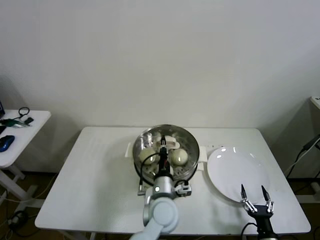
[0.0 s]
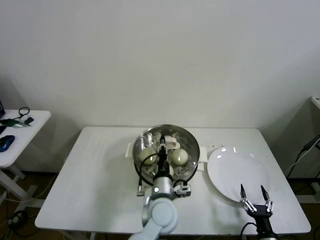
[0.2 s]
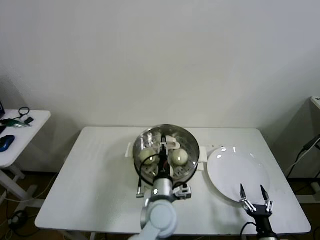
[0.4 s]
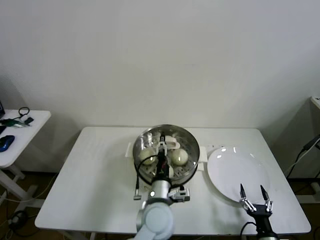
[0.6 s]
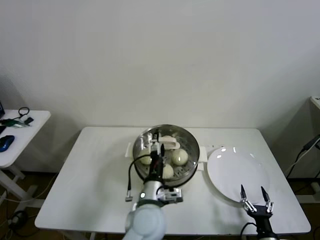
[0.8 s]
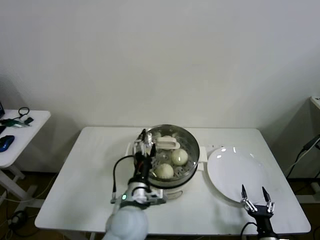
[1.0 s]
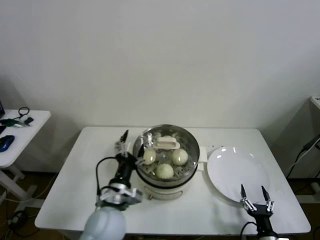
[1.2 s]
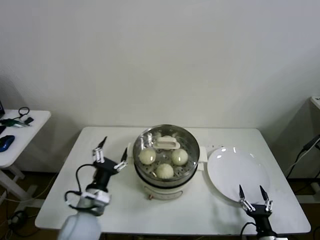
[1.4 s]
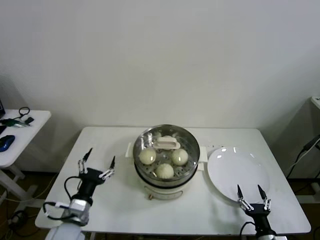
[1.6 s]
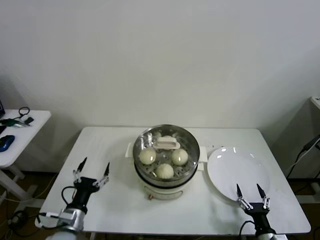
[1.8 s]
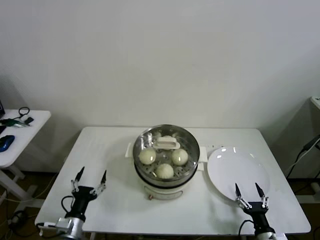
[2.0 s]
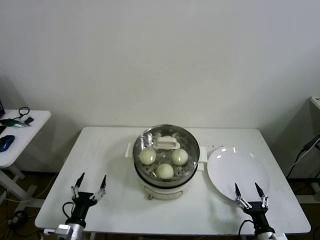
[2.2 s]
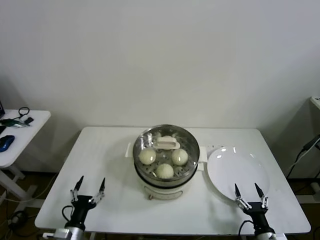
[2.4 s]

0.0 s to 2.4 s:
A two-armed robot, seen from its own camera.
Task of the whole recording: take steamed baozi put them in steamer then cover it.
0.0 to 1.2 s: The left gripper goes about 15 cm to the left, and opens.
1.2 to 2.4 s: The left gripper moves to the left and downward, approximately 25 cm.

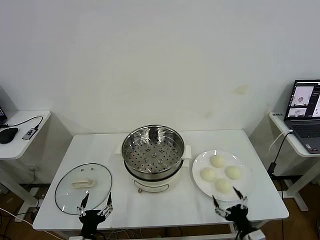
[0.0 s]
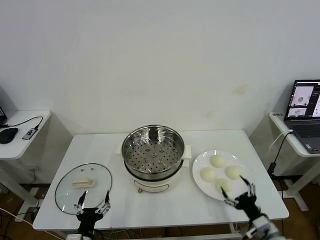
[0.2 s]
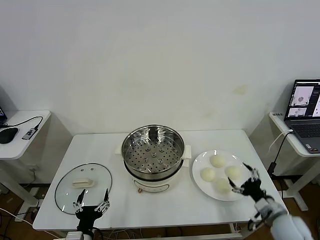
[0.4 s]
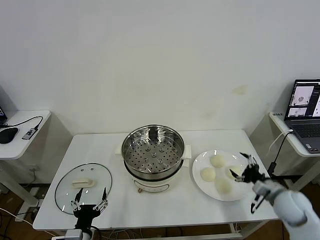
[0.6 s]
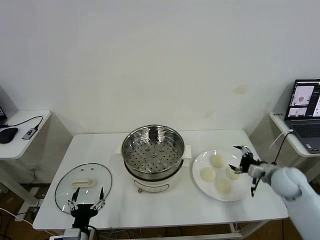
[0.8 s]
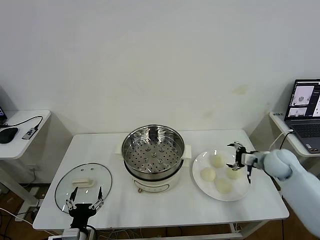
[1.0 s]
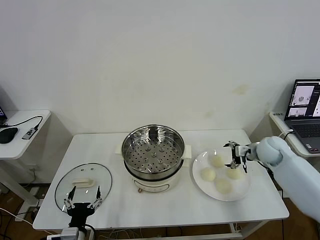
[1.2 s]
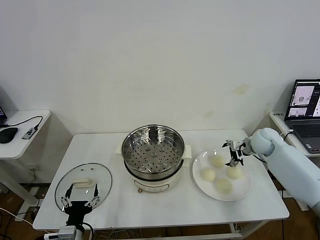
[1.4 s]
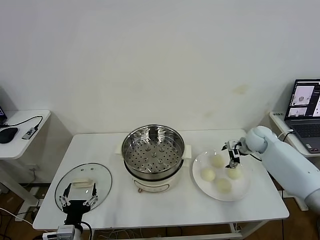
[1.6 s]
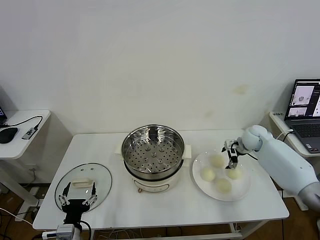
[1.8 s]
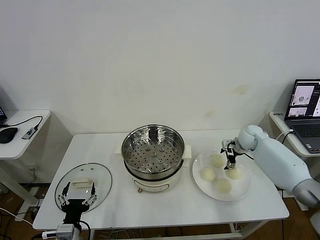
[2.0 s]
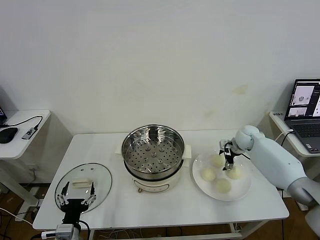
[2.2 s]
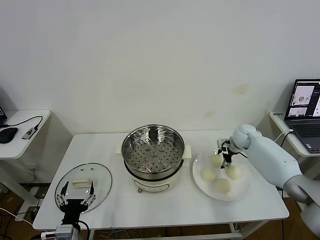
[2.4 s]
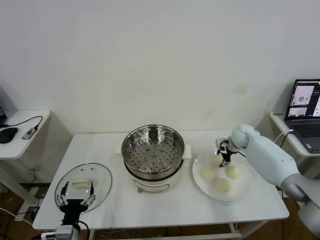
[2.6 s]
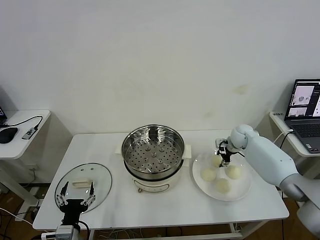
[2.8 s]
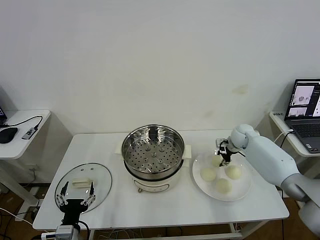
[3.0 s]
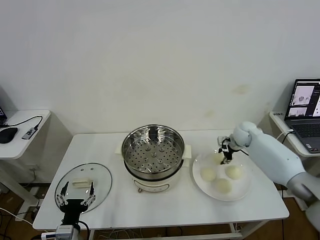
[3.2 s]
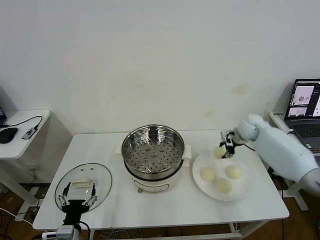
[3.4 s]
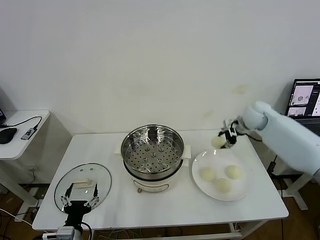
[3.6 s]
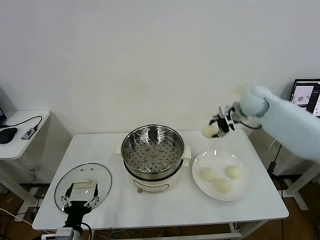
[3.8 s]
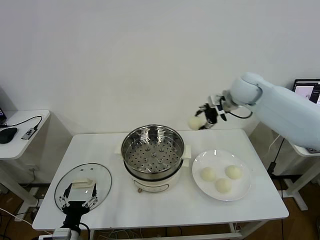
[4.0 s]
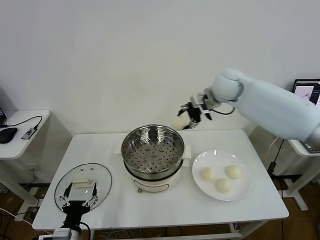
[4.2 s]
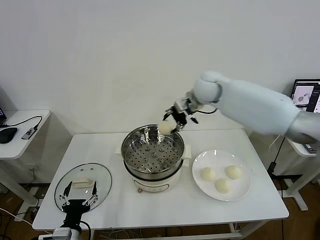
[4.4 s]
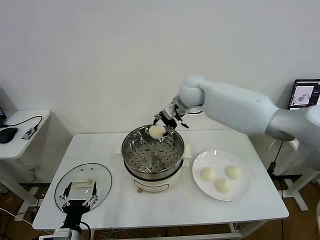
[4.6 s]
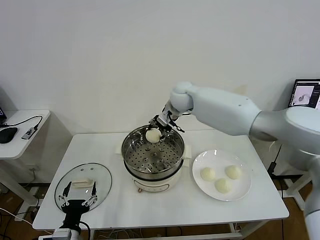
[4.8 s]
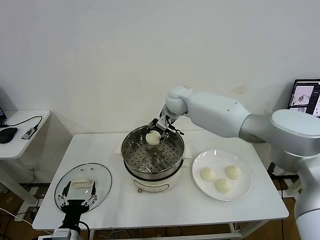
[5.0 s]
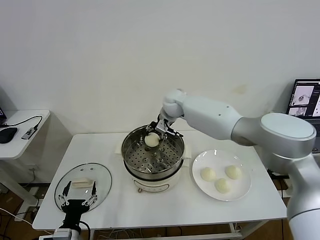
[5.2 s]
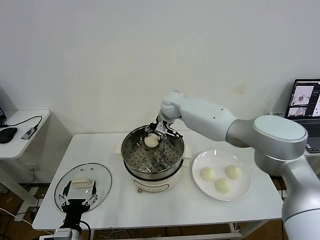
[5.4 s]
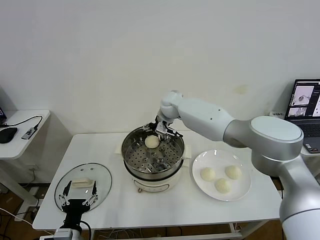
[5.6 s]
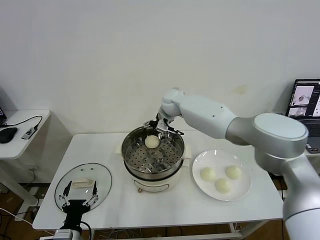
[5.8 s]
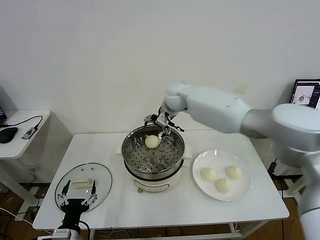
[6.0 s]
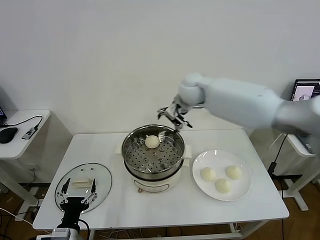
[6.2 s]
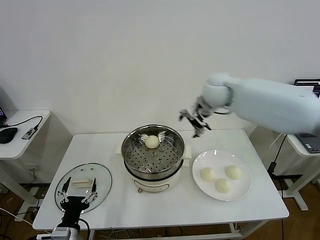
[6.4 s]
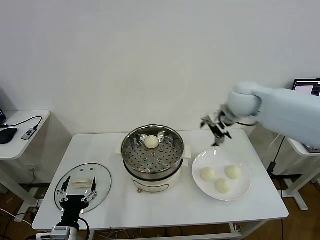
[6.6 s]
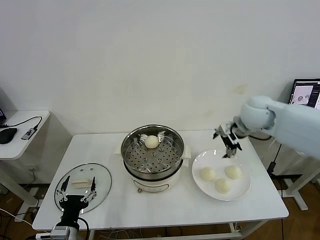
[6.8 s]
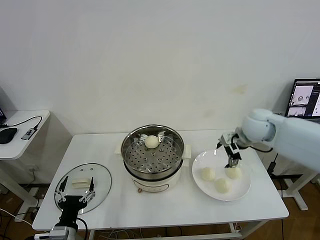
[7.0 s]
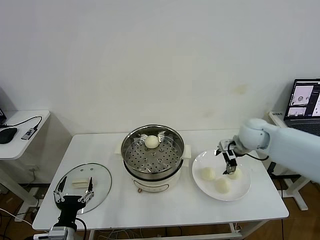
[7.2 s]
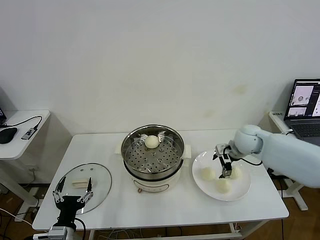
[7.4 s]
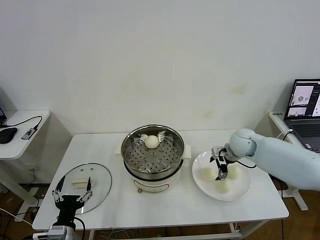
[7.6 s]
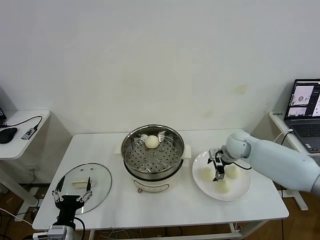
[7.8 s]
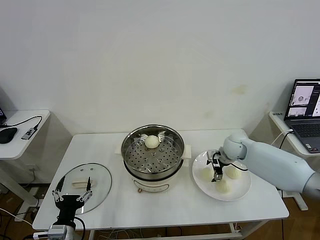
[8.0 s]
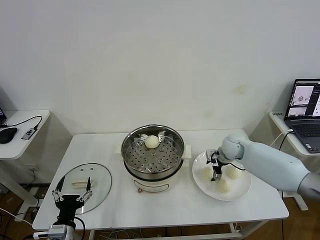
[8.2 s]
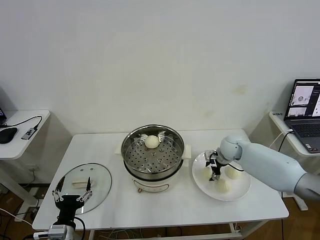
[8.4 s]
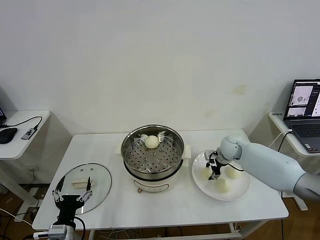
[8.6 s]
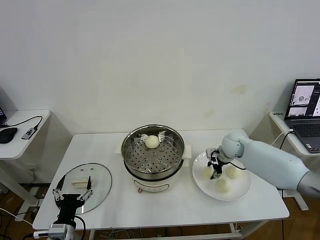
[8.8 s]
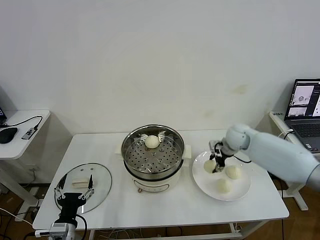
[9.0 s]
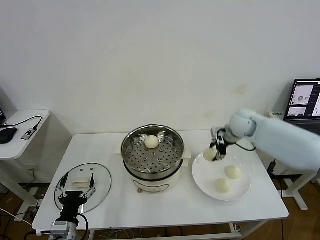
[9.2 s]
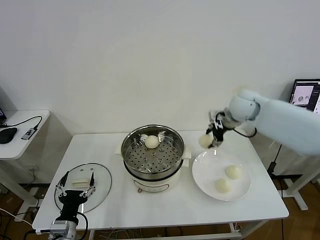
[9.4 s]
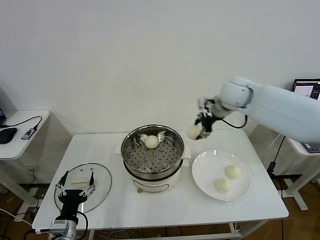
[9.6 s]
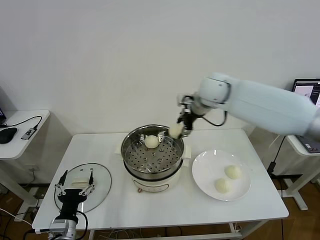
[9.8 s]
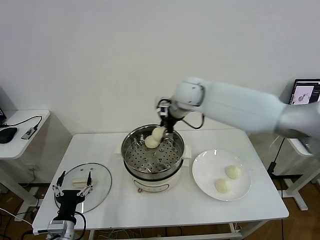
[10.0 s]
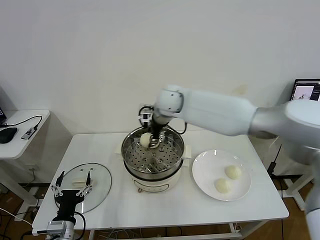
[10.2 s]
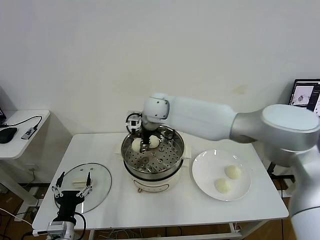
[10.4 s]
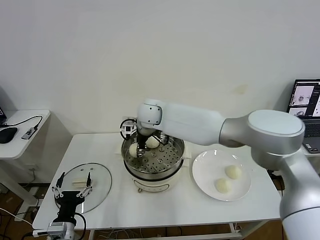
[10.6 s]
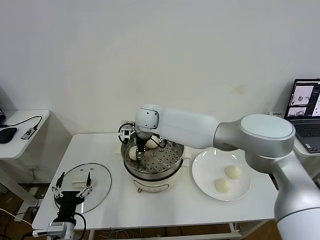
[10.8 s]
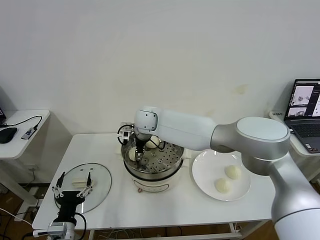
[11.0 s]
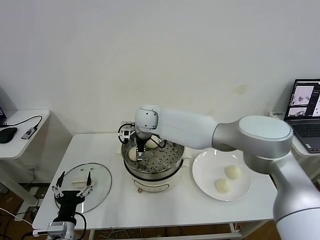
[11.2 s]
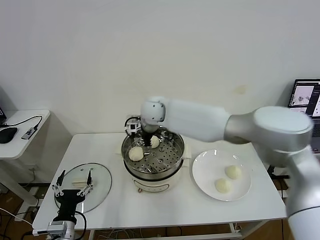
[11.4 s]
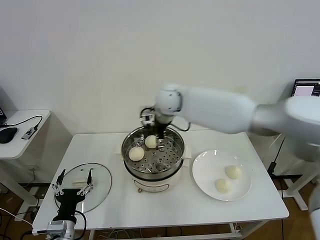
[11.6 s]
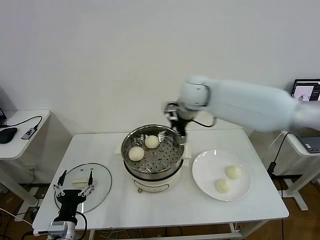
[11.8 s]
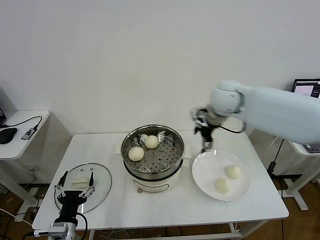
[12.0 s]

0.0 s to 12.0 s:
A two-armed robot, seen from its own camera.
Task of the whole recording: take steamed baozi put them in steamer then cover it.
Step, 0.0 to 3.0 s: Grasp the baozi in the plate with right gripper.
Step, 3.2 to 5.6 s: Place the baozi on the steamer with right gripper.
Step, 5.8 to 8.8 s: Grasp the baozi in the plate with right gripper.
Step, 9.0 to 11.4 s: Place the baozi on the steamer with right gripper.
1.6 to 3.0 s: The right gripper closes its fingers.
3.0 to 4.4 s: The right gripper moves to the left and upward, approximately 30 cm.
4.4 to 6.0 s: The right gripper goes downward and returns, some 10 cm each way, and opens up.
6.0 to 7.6 s: The right gripper heads to the right, downward and backward, covering approximately 30 cm.
7.6 to 9.0 s: The right gripper ends up roughly 5 cm from where it was, and closes its fingers.
9.0 to 10.4 s: The right gripper is displaced to the left by some 30 cm.
10.4 to 12.0 s: The right gripper goes roughly 25 cm to the right, and opens its fingers.

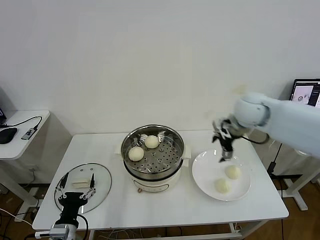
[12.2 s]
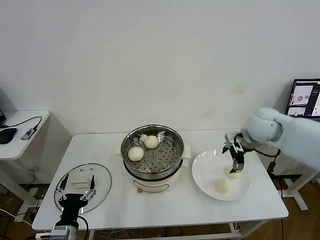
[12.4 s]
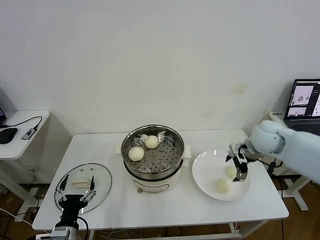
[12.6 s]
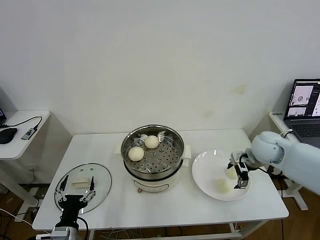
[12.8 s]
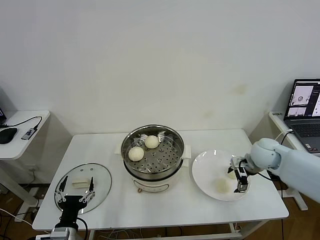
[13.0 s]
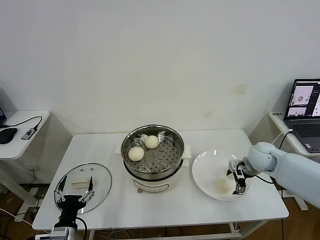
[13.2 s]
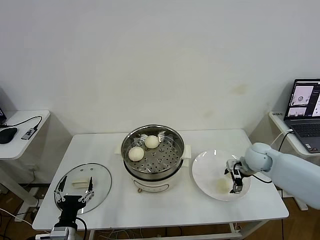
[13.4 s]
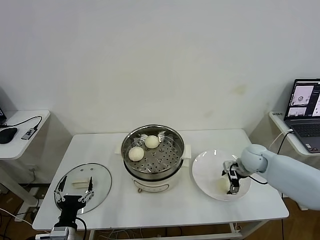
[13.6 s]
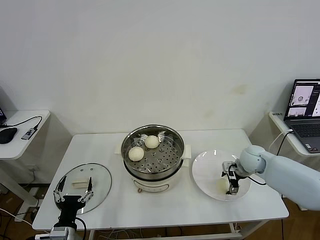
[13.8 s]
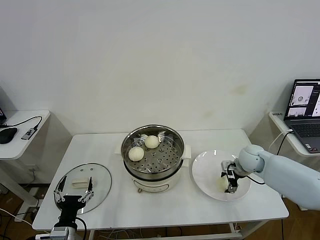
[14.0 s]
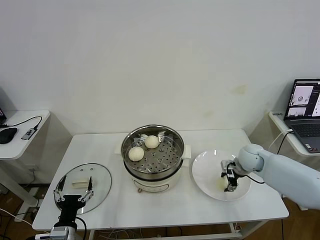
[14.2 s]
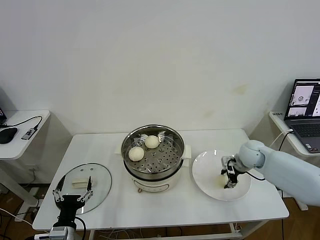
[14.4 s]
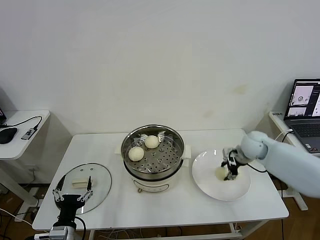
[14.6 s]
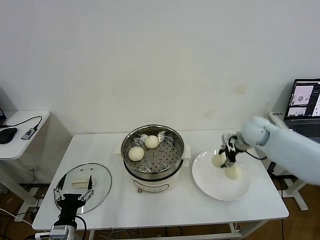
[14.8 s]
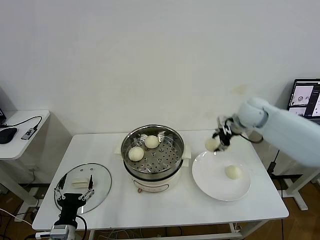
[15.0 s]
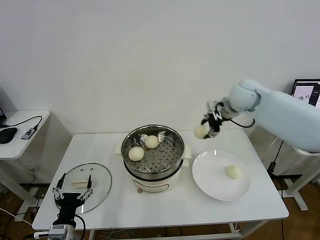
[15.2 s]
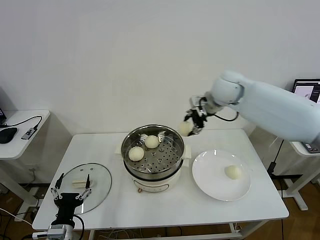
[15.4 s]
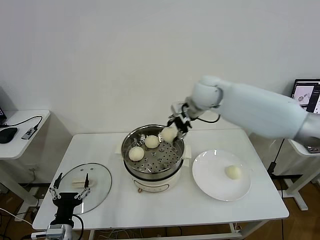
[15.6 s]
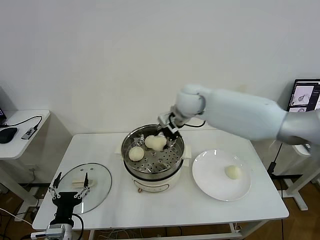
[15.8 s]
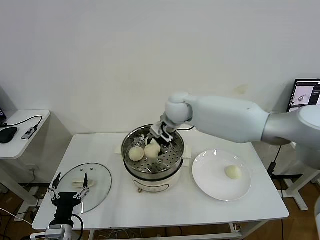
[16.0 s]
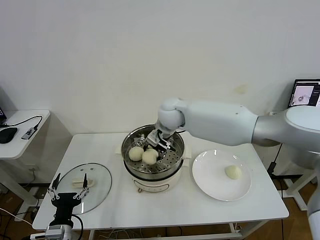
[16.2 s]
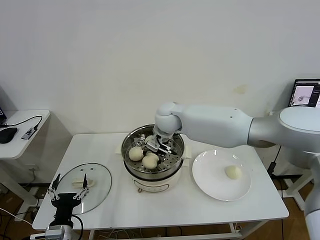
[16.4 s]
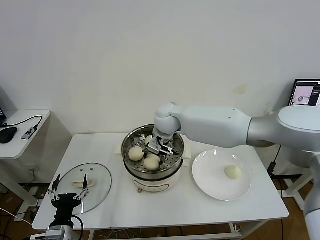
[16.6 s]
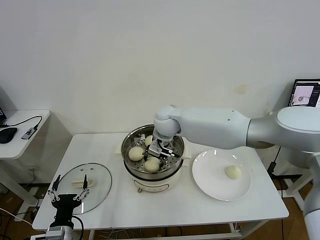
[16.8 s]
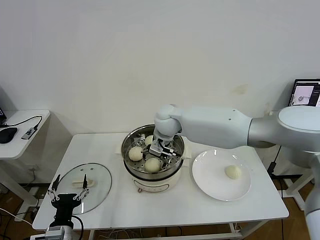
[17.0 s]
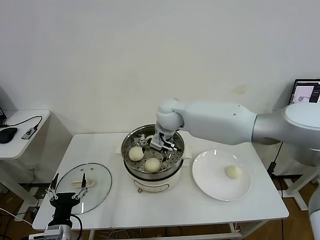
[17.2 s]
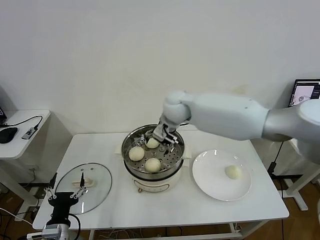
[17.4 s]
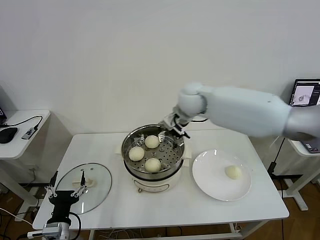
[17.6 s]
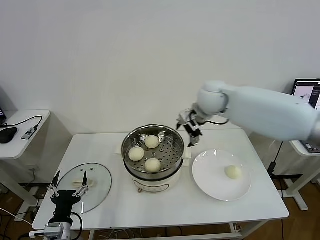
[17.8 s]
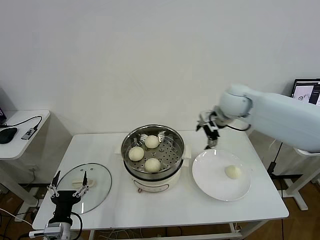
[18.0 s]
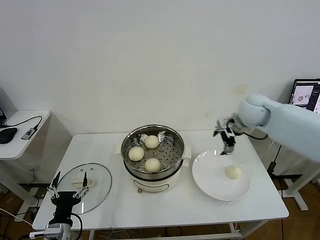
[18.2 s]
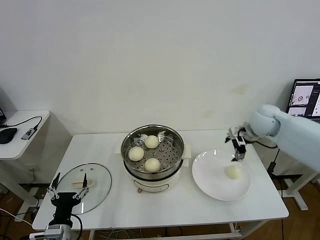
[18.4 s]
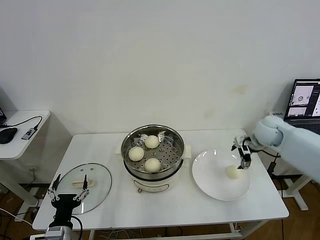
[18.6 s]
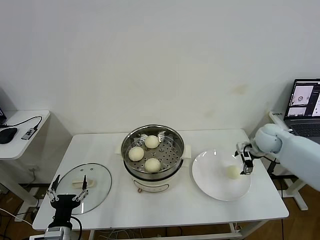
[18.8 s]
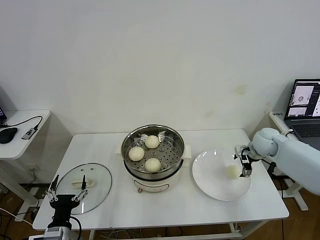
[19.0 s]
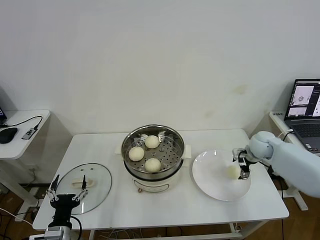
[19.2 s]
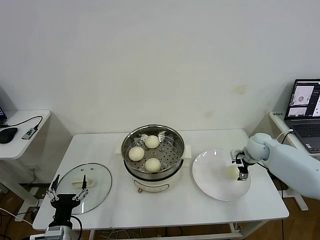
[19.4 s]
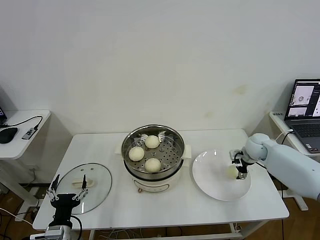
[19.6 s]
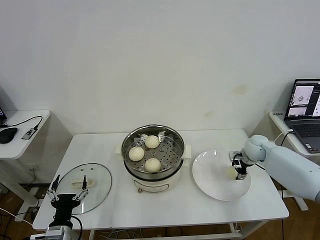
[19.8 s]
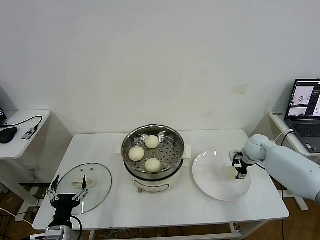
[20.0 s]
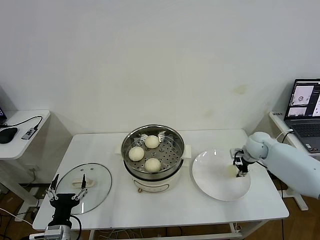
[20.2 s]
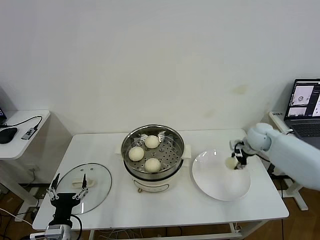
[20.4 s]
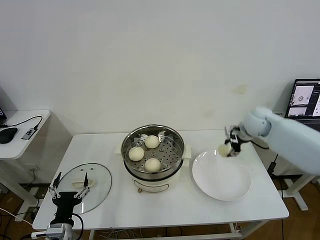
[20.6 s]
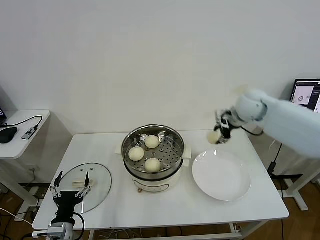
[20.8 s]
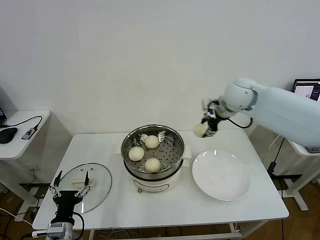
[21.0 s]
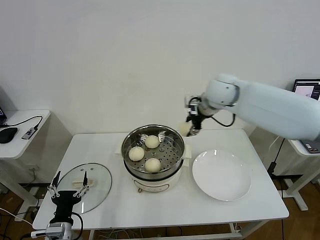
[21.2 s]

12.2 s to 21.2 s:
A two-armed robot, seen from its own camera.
Task of the whole recording: take steamed baozi put them in steamer then cover it.
Step, 12.2 to 14.2 s: Grasp the baozi in the plate with right gripper.
Step, 14.4 to 17.0 s: Place the baozi on the steamer with right gripper.
Step, 17.2 to 20.2 s: Grasp the baozi in the plate with right gripper.
12.2 to 13.8 s: The right gripper travels downward by some 20 cm.
13.8 to 15.2 s: The right gripper travels upward and to the left by approximately 25 cm, and closes up.
15.2 to 16.6 s: The right gripper is displaced to the left and downward by roughly 25 cm.
16.6 to 18.2 s: The right gripper heads to the right, covering roughly 30 cm, and opens.
18.2 to 19.8 s: The right gripper shifts about 20 cm downward, and closes its fingers.
19.8 to 21.2 s: The right gripper shifts some 30 cm upward and to the left, and closes up.
